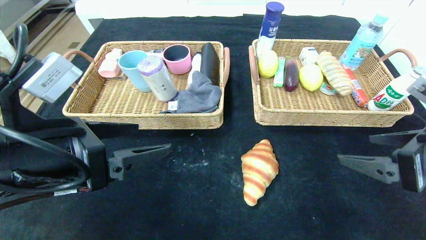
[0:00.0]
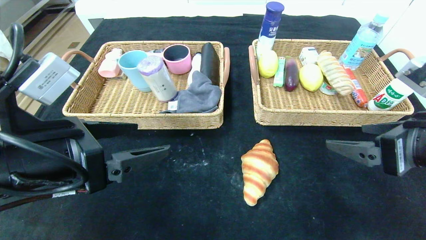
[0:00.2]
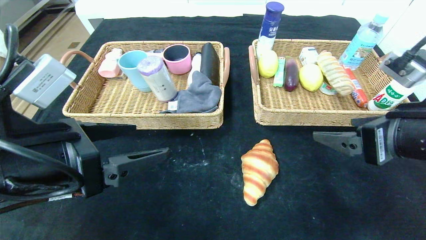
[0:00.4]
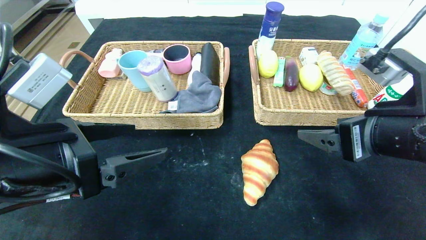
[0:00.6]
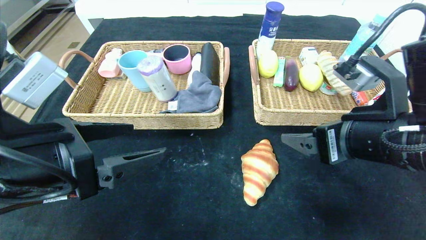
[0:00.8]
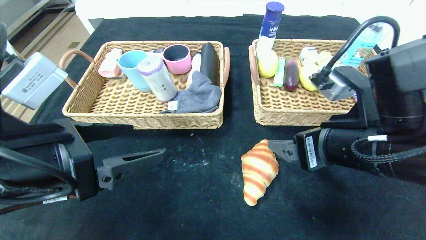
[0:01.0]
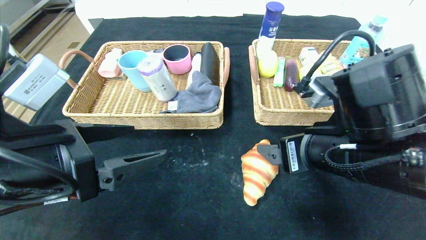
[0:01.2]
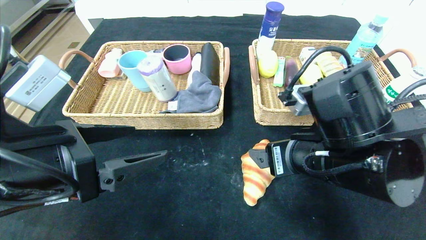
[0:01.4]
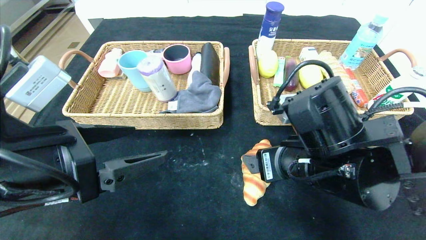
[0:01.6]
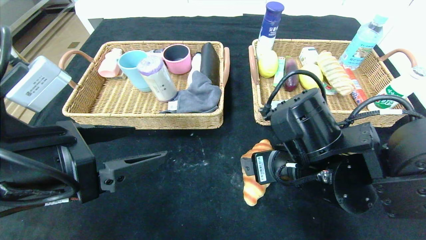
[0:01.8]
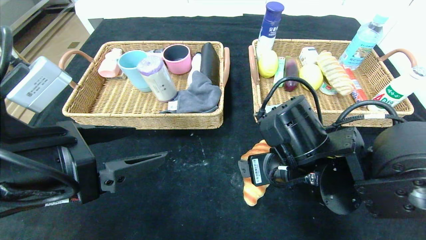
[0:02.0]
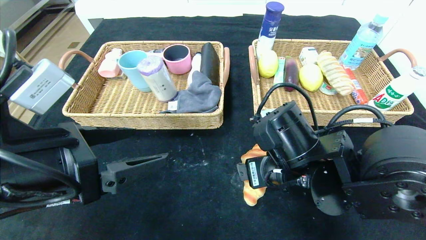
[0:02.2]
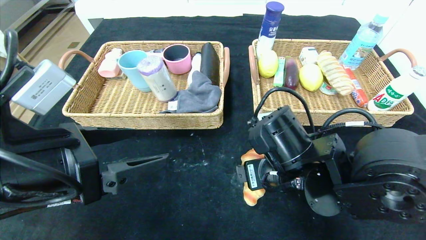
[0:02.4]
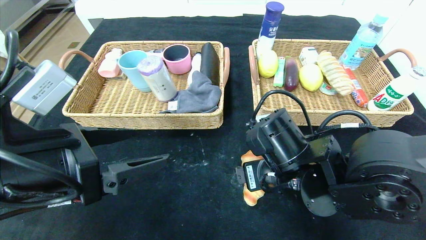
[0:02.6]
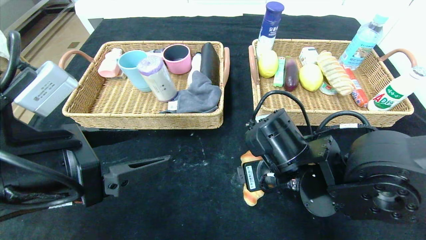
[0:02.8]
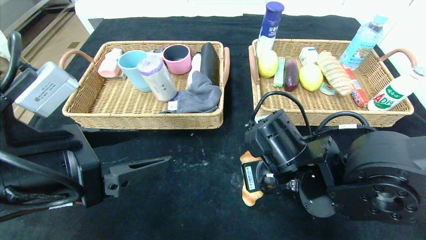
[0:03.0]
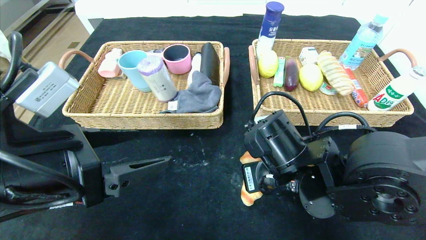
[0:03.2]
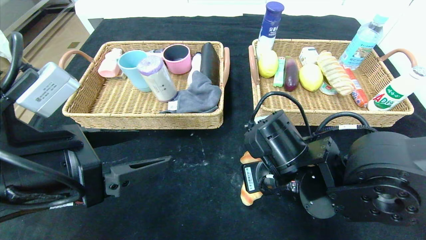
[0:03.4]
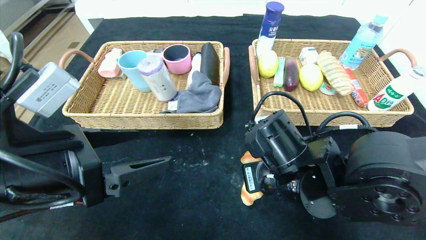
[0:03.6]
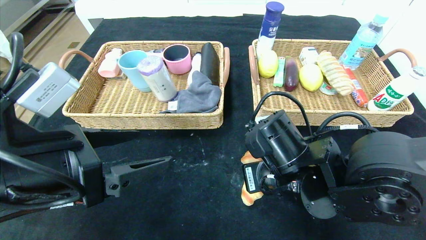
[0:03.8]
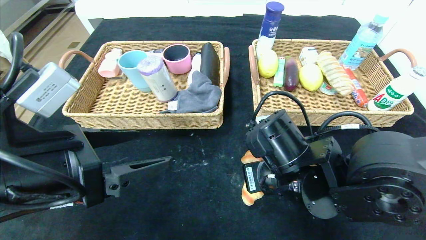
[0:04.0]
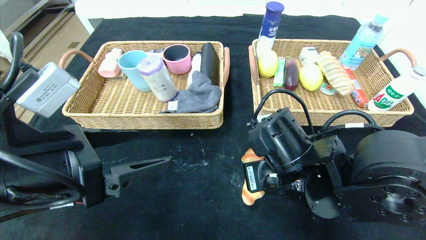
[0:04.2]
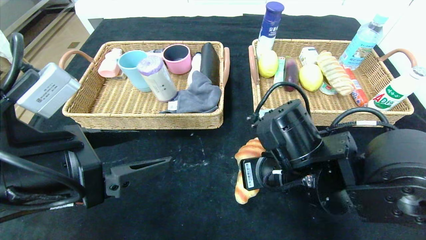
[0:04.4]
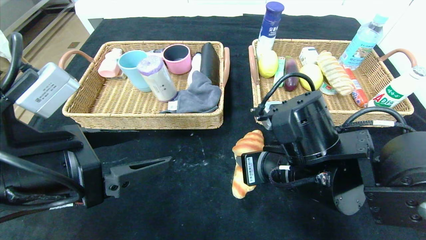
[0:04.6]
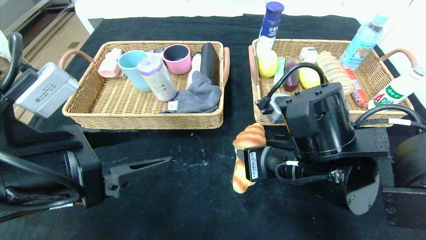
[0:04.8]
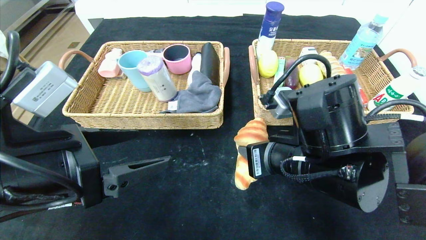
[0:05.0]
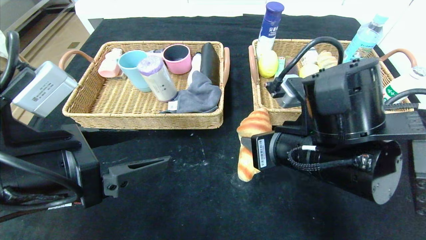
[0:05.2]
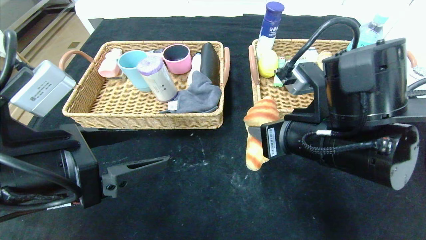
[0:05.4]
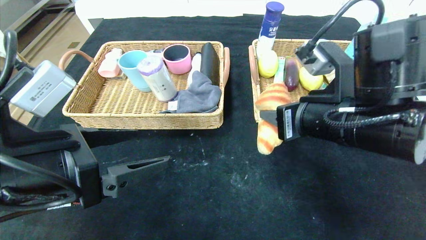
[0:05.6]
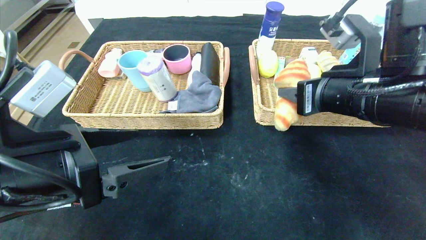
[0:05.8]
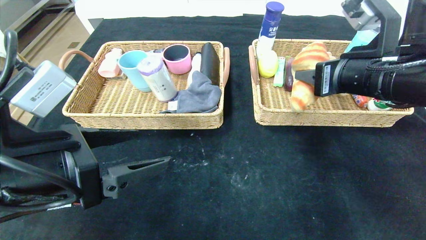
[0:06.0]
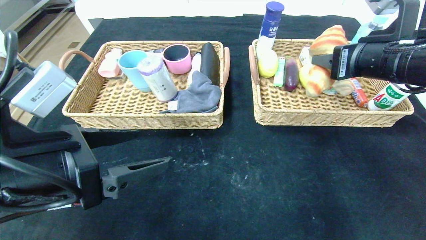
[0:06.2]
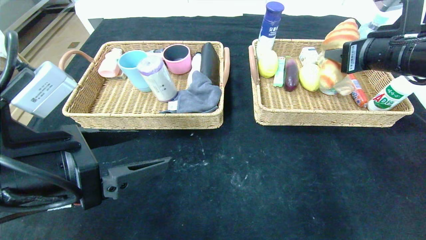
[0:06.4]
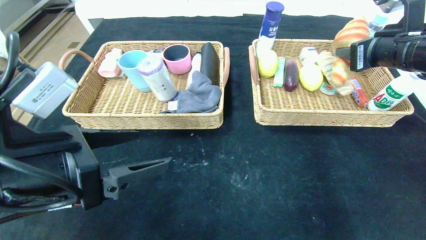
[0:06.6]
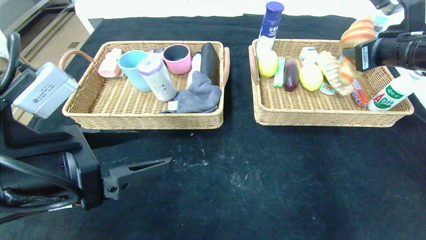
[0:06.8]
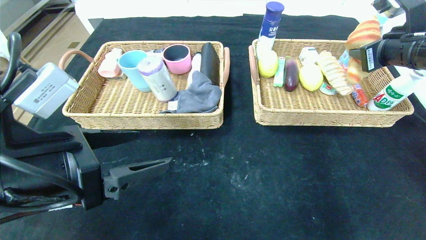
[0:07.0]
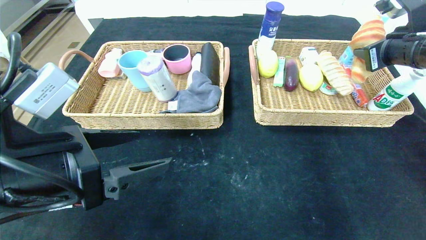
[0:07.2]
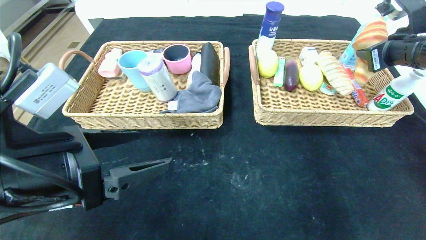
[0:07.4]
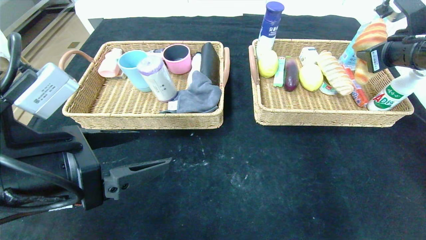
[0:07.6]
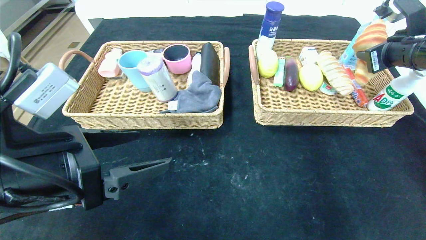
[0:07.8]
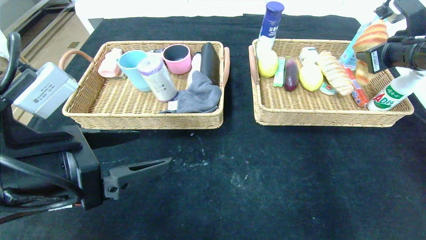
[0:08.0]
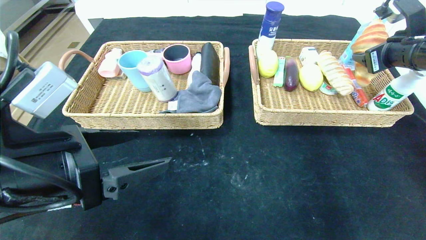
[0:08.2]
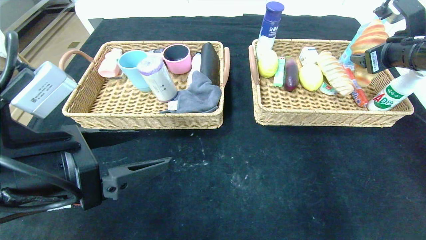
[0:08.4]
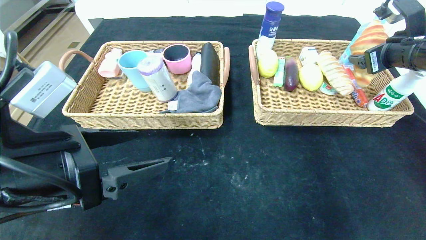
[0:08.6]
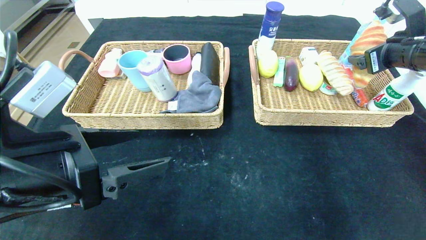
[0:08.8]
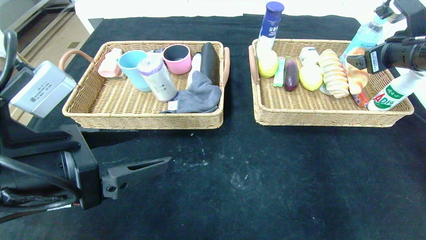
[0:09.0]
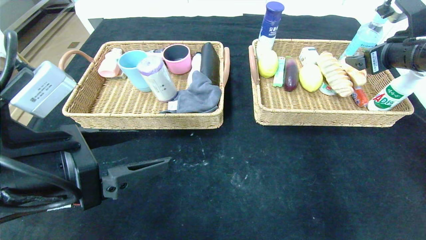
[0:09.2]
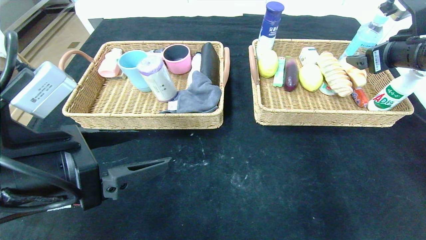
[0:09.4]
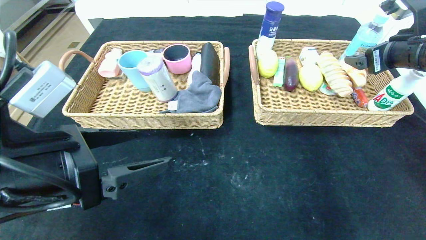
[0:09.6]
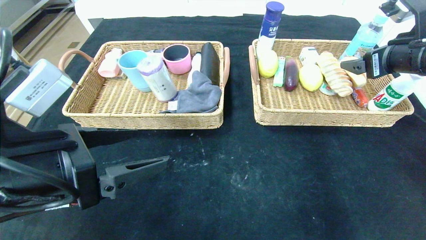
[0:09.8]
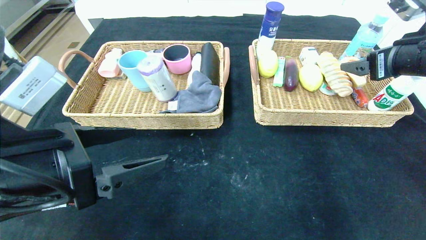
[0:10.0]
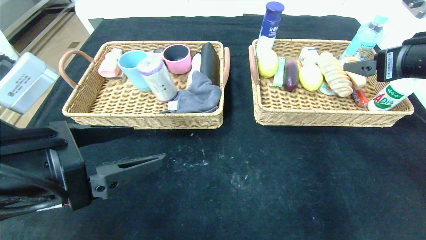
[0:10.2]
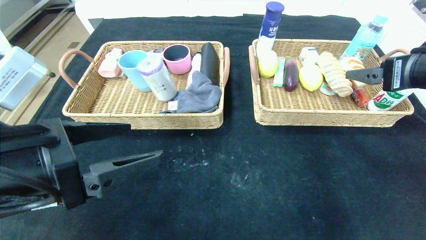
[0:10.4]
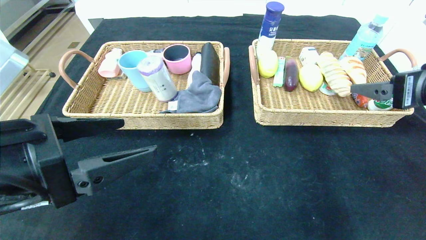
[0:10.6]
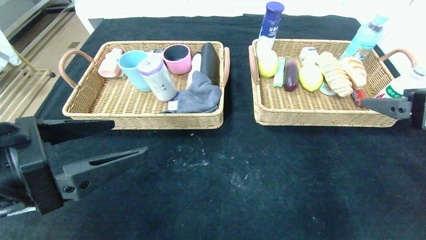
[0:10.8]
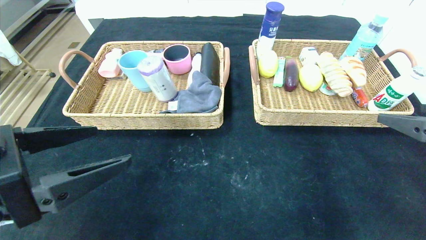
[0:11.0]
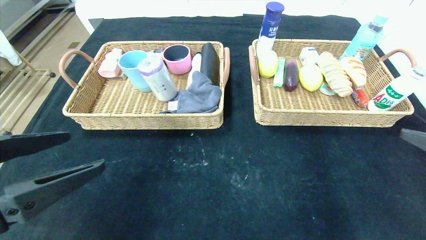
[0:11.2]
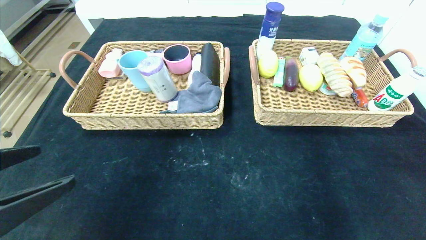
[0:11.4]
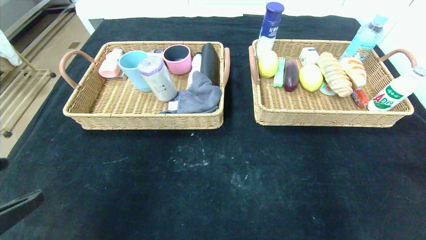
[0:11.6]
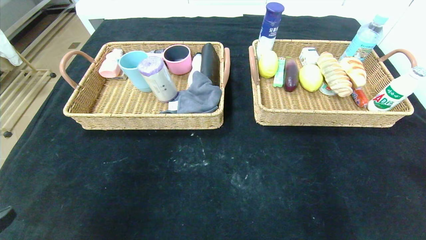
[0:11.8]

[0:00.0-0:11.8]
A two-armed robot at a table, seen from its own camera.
Step, 0:00.0 to 0:09.0: Grasp the croissant and put it in the right basket.
0:00.0 to 0:01.4: The right gripper moves to the left, roughly 15 cm.
0:01.4 to 0:03.0: The right gripper goes some 5 cm downward, and closes up.
0:03.0 to 0:04.4: There are only small adjustments of the grippers.
0:04.4 to 0:06.0: The right gripper moves upward and to the right, some 15 cm.
0:06.0 to 0:07.4: The right gripper shifts roughly 15 cm to the right and forward.
0:07.4 to 0:08.8: The right gripper opens.
0:08.8 to 0:10.4: The right gripper travels backward by about 10 cm.
0:10.4 to 0:11.8: The right gripper travels backward by about 25 cm, while the left gripper moves backward and to the left, approximately 15 cm.
